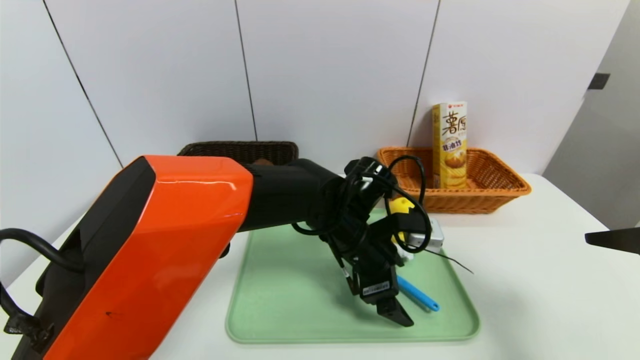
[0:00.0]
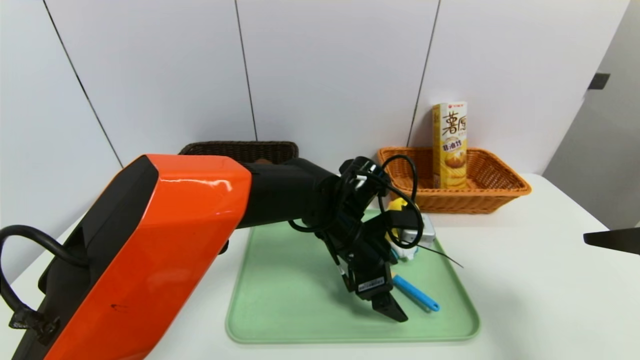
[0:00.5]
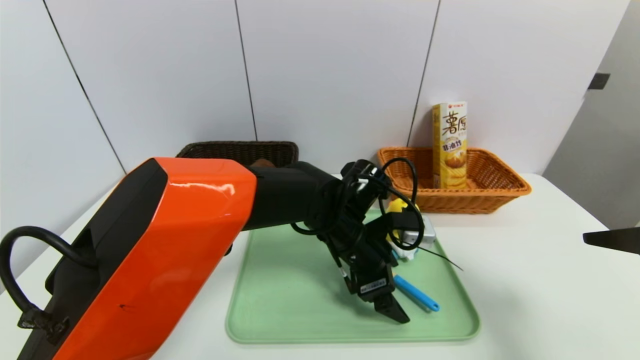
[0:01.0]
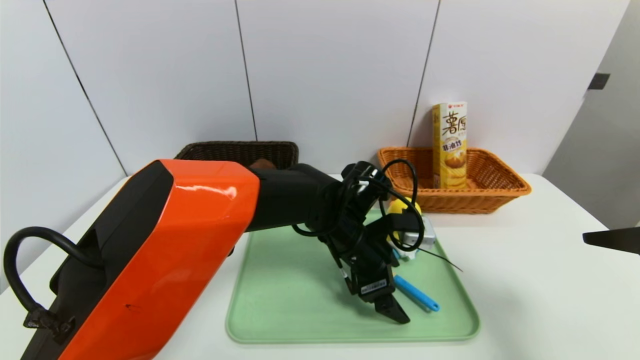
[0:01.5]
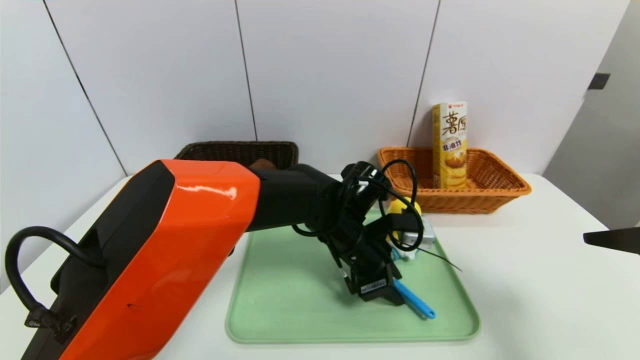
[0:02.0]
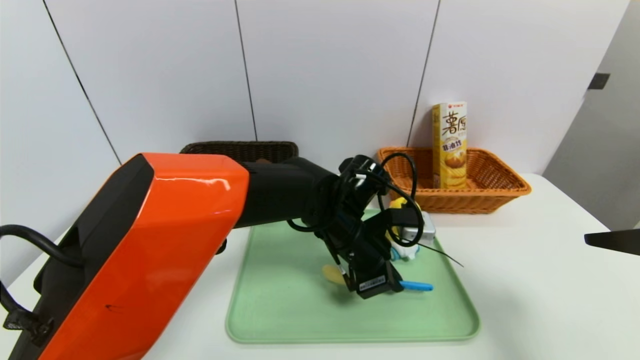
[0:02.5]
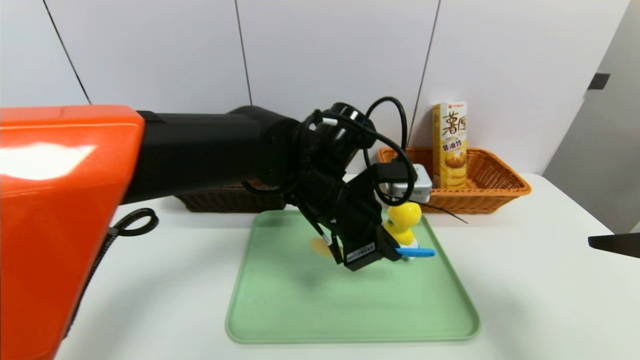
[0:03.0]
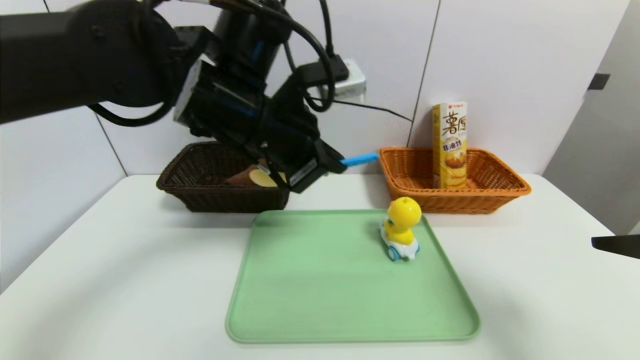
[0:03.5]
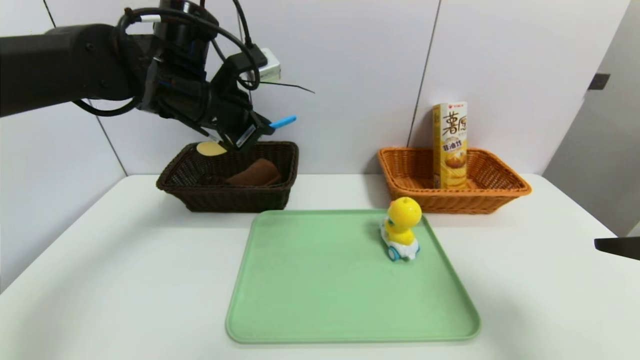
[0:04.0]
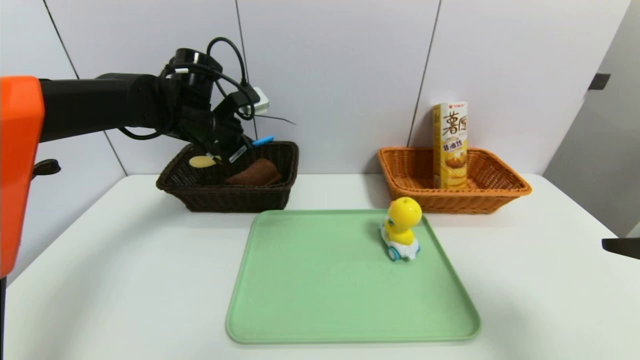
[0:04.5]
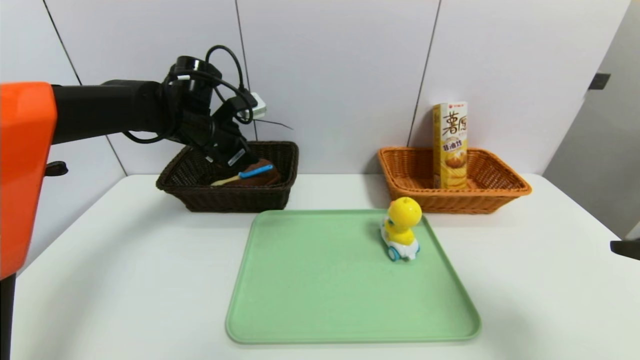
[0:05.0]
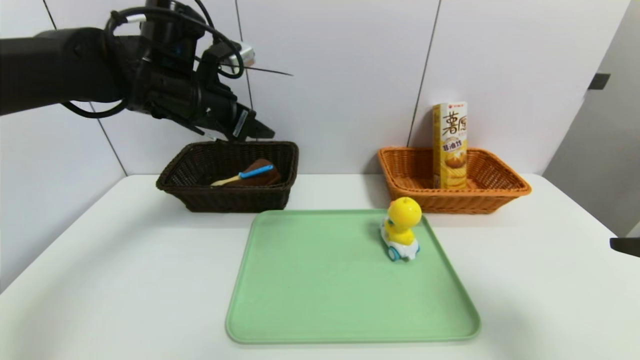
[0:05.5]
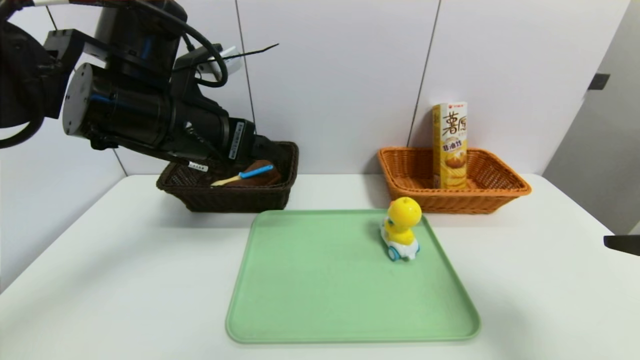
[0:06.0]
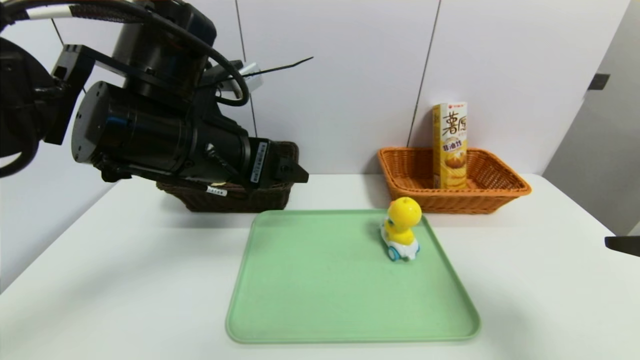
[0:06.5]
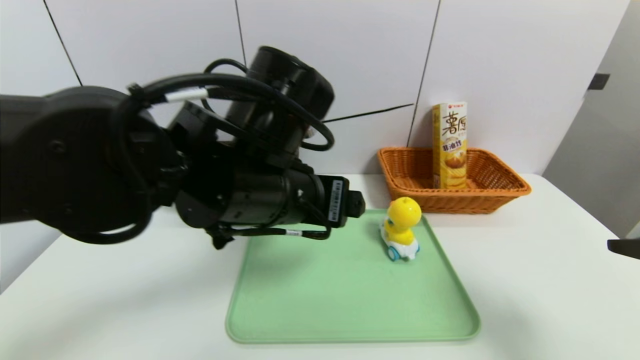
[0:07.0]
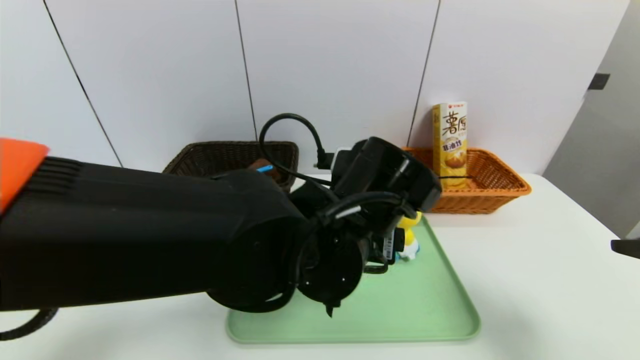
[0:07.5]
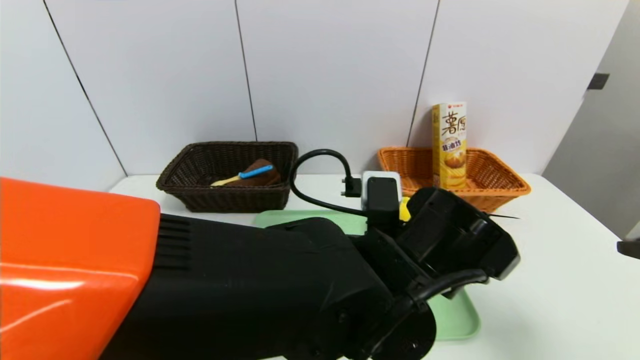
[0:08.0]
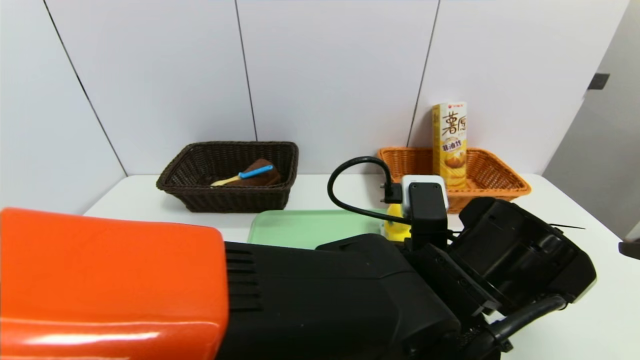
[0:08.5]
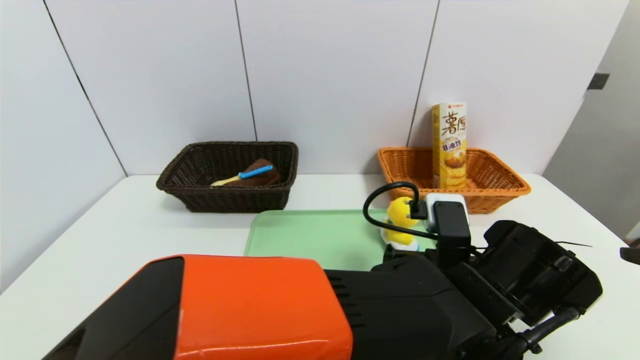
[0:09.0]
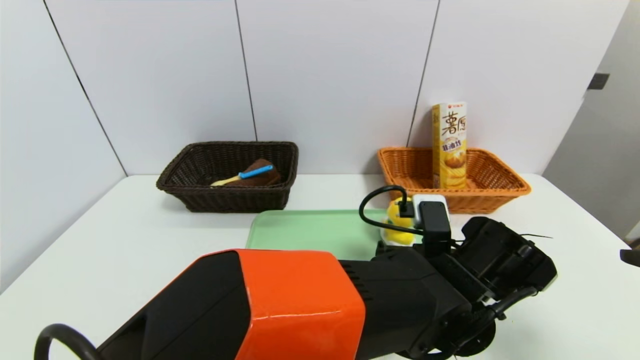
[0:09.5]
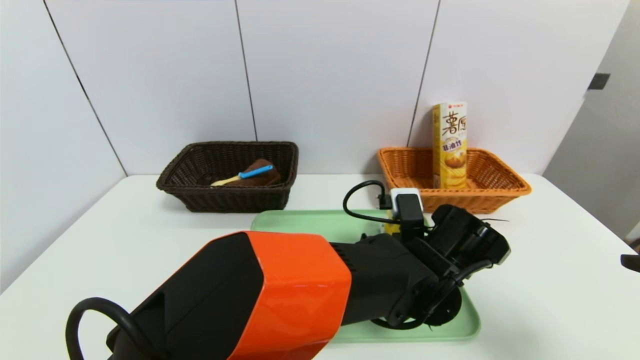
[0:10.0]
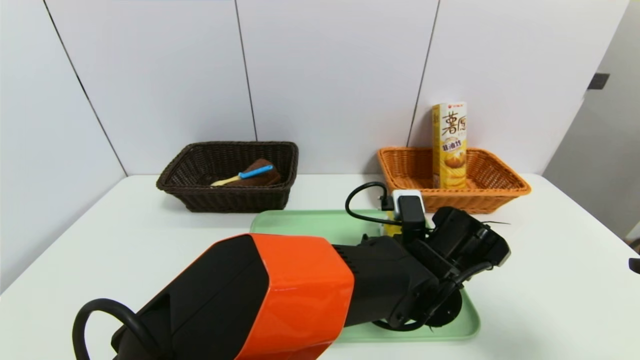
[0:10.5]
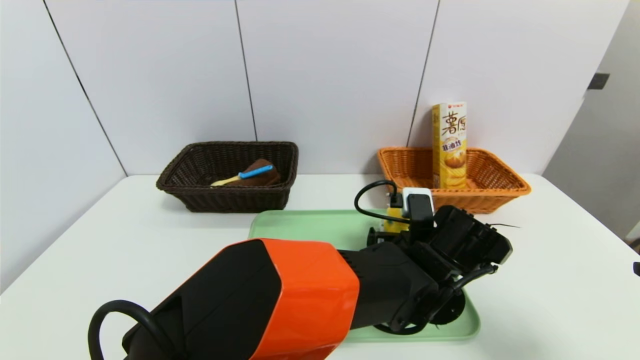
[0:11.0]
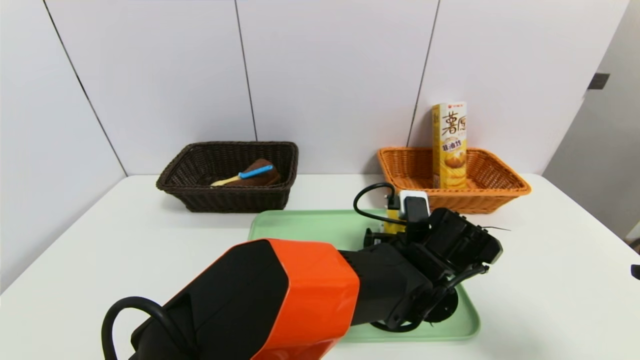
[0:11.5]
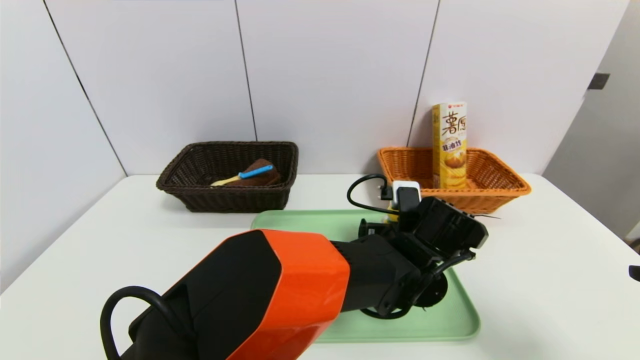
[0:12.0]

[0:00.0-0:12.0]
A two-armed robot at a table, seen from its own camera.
Task of the whole recording: place the food in the right basket with the right gripper, and place the non food items in the left basket with the left gripper.
Step, 0:00.0 to 0:05.0: Grasp the back scratcher and put it in the left basket.
0:00.0 to 0:02.0: The left gripper closes up.
0:02.0 to 0:04.0: The left gripper travels to the left and upward by approximately 25 cm, and closes up.
0:04.0 to 0:06.0: The left gripper moves backward, about 10 cm, and opens up.
0:06.0 to 0:08.0: The left gripper goes approximately 25 cm to the right and downward.
0:08.0 to 0:10.0: The left gripper is displaced to the right, downward and forward by some 10 cm.
0:10.0 to 0:12.0: The grippers make only small movements.

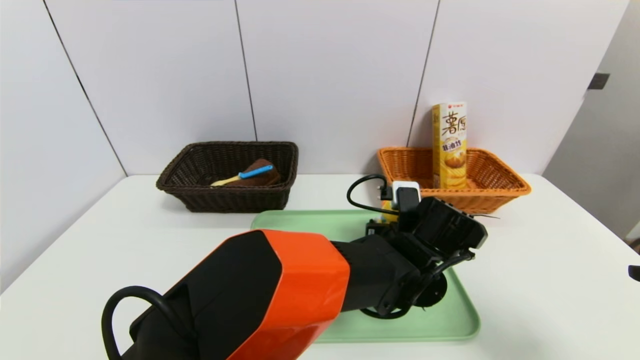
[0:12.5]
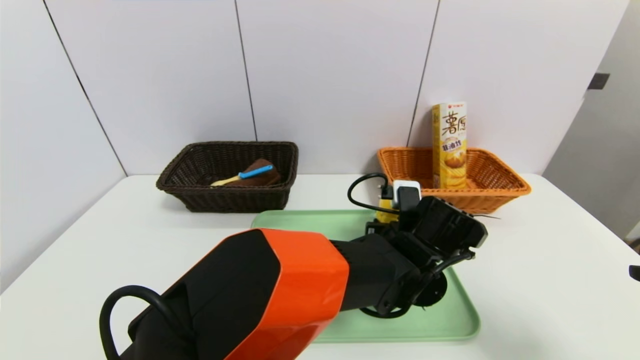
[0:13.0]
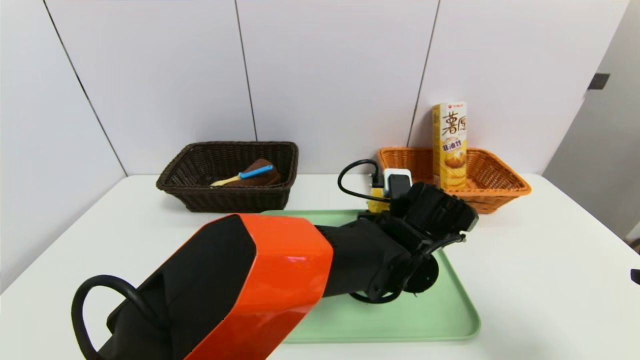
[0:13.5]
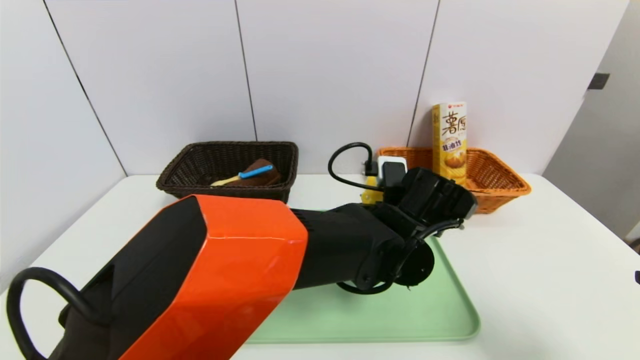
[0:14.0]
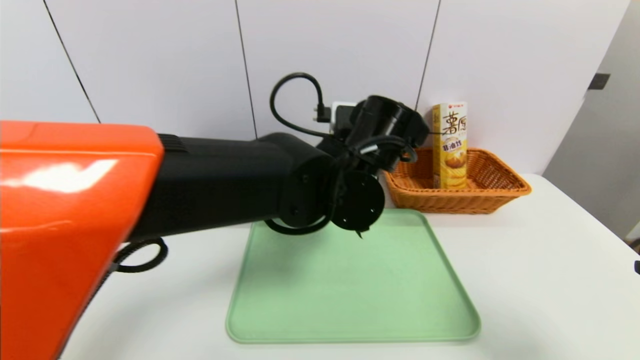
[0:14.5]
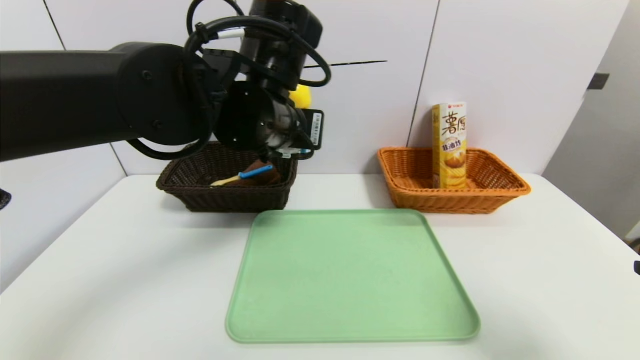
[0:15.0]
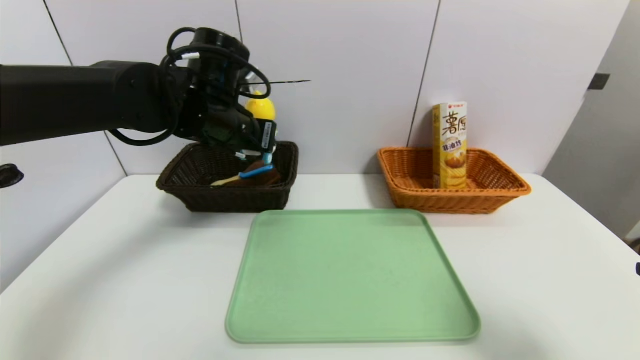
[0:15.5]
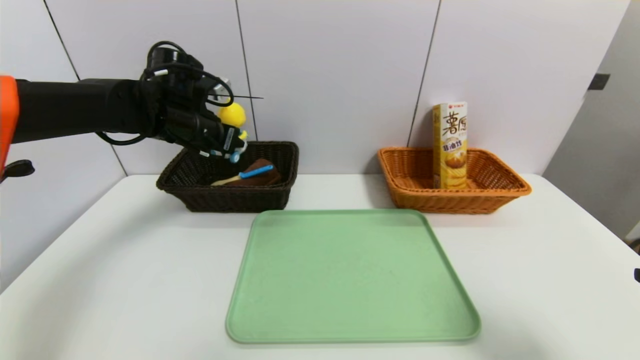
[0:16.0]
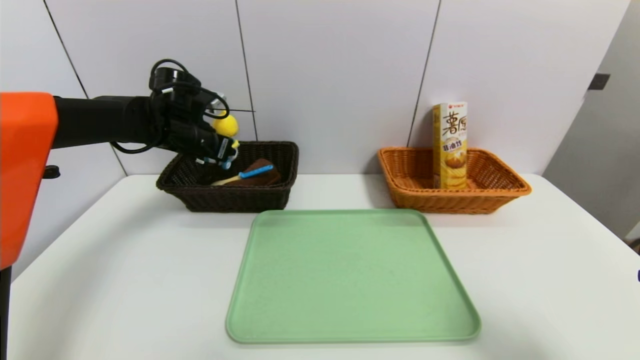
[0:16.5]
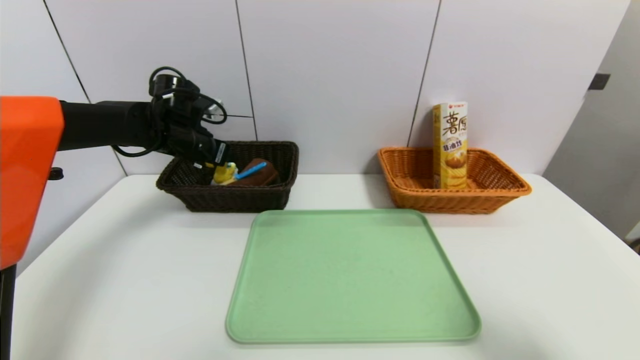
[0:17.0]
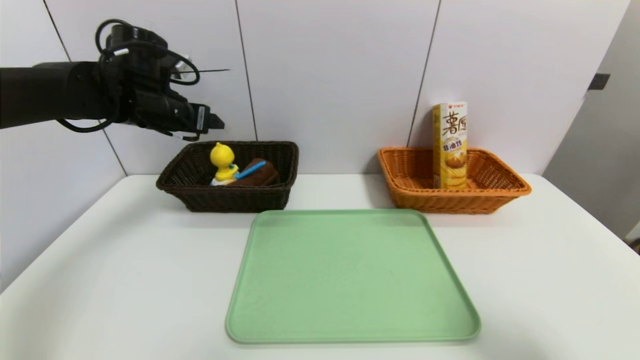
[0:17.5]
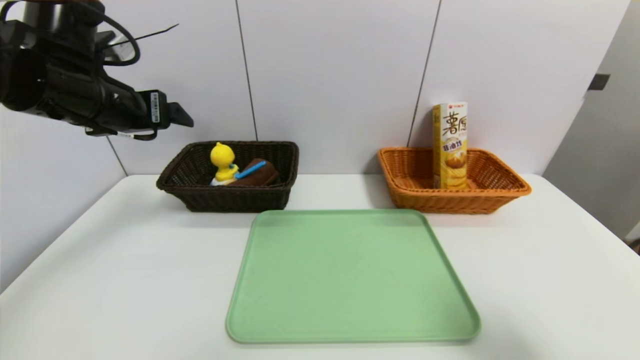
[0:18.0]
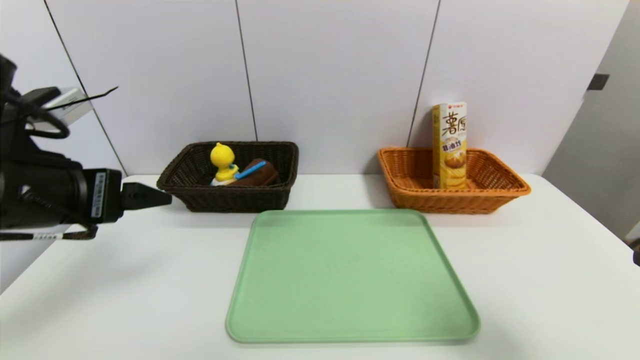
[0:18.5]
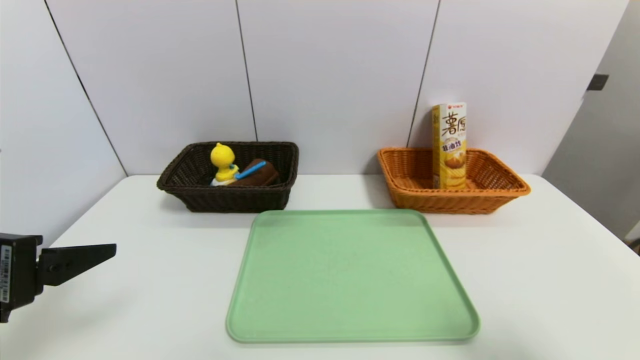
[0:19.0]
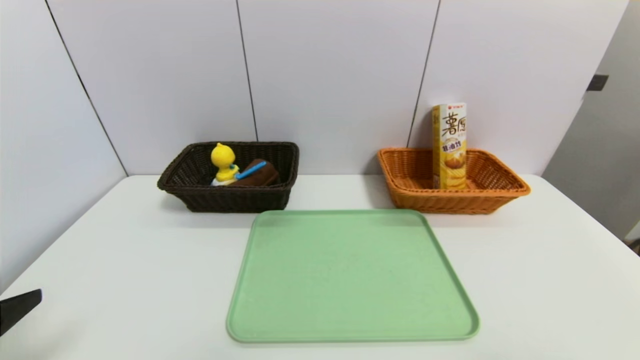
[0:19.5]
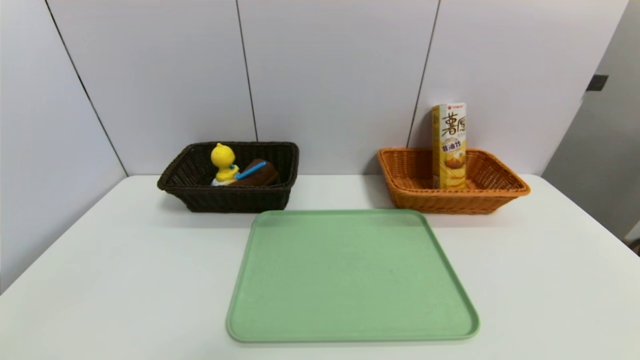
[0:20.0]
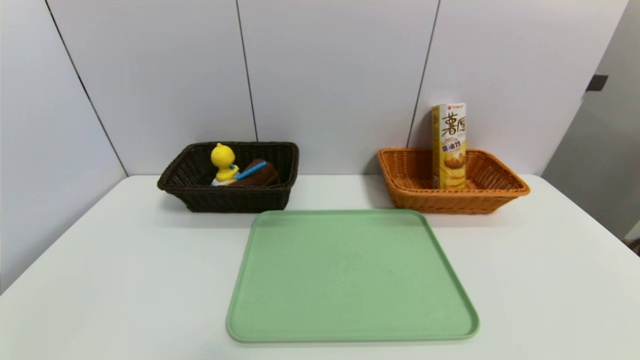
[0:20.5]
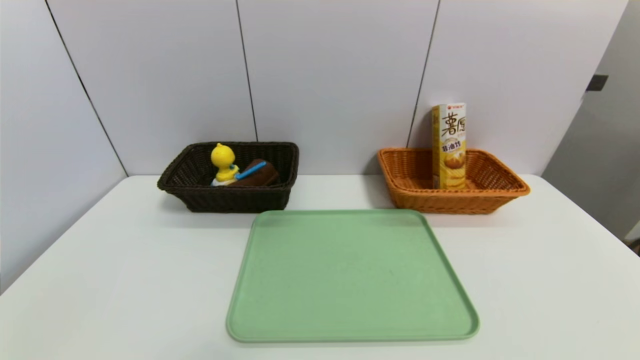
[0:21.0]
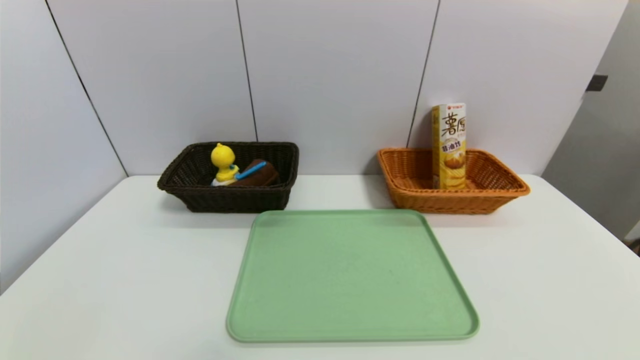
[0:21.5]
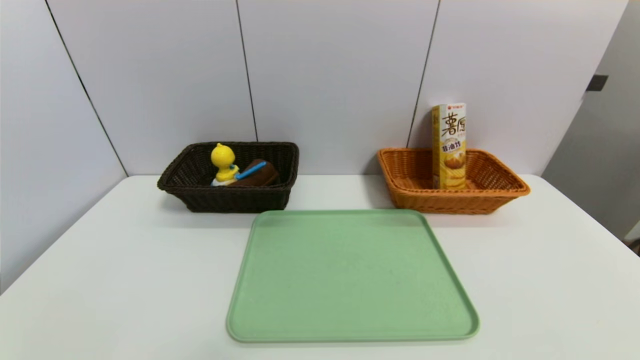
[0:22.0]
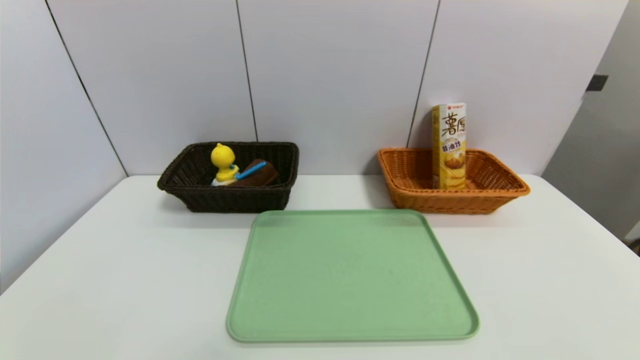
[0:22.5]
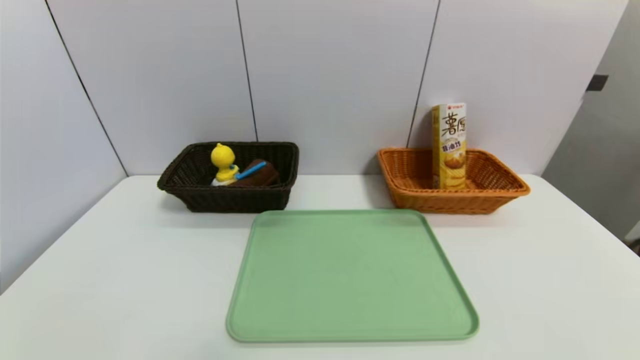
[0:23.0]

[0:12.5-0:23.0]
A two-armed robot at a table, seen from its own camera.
Task of the whole recording: place the food in the right basket with the right gripper, and place the non food items in the left basket with the left gripper.
Step, 0:12.5 to 0:17.0: Grasp the yellow duck and put it in the left basket.
0:12.5 to 0:14.5: The left gripper moves upward and to the left, some 15 cm.
0:14.5 to 0:16.5: The left gripper moves to the left and forward, some 30 cm.
0:16.5 to 0:19.0: The left gripper is displaced backward by some 35 cm, and opens up.
0:19.0 to 0:21.0: The grippers both shift backward and downward by about 20 cm.
